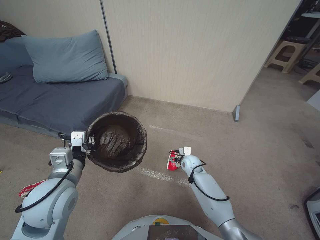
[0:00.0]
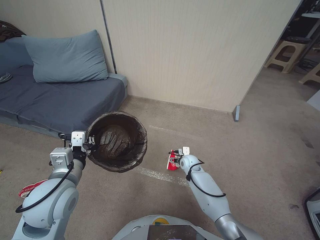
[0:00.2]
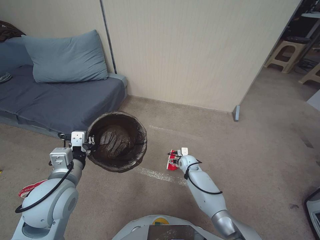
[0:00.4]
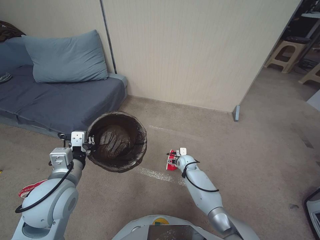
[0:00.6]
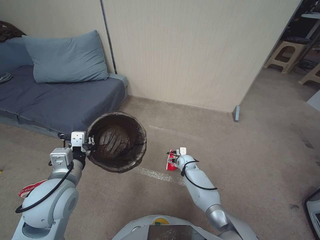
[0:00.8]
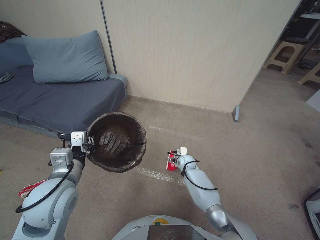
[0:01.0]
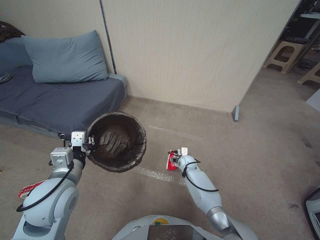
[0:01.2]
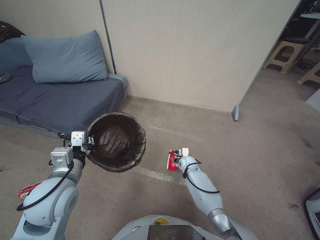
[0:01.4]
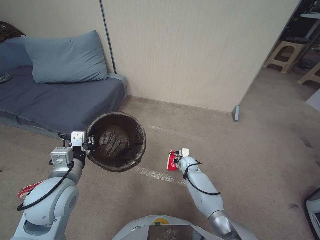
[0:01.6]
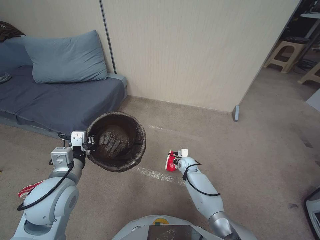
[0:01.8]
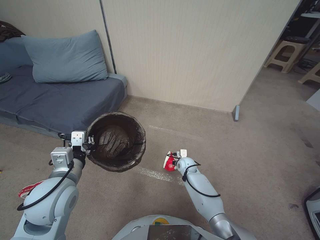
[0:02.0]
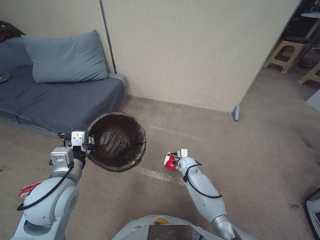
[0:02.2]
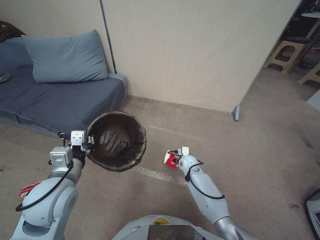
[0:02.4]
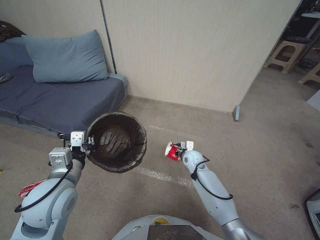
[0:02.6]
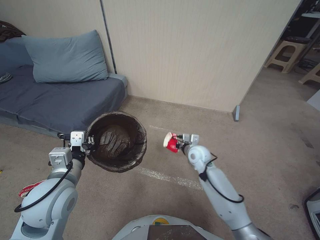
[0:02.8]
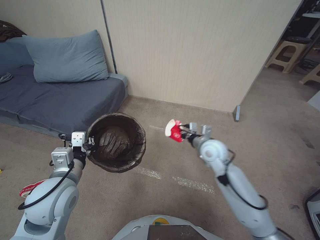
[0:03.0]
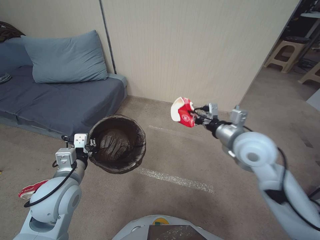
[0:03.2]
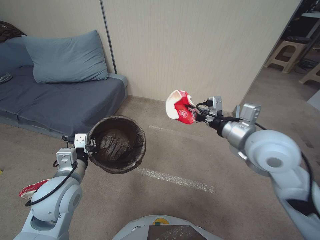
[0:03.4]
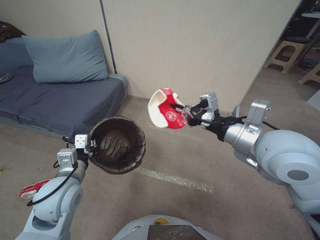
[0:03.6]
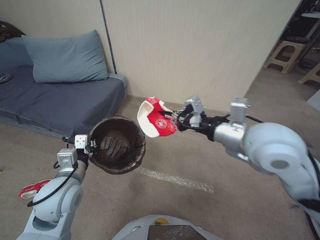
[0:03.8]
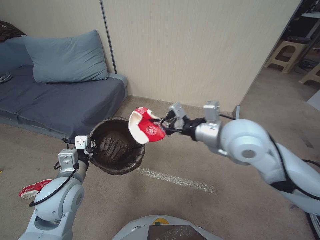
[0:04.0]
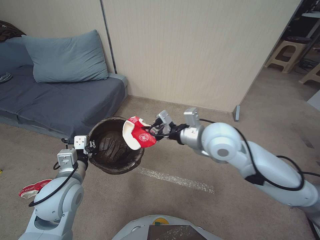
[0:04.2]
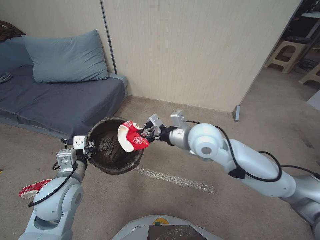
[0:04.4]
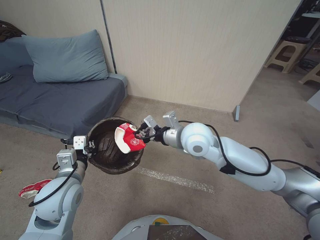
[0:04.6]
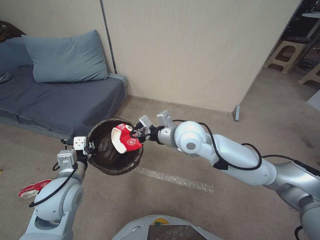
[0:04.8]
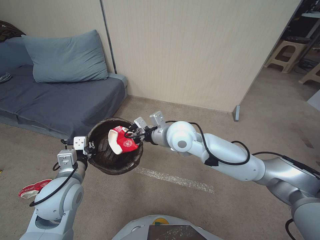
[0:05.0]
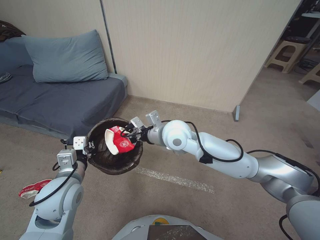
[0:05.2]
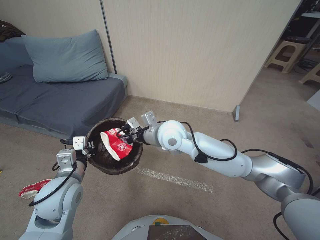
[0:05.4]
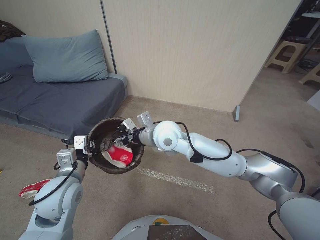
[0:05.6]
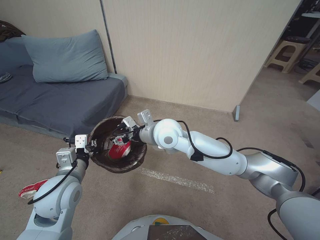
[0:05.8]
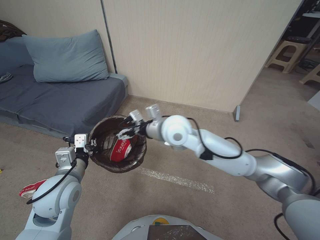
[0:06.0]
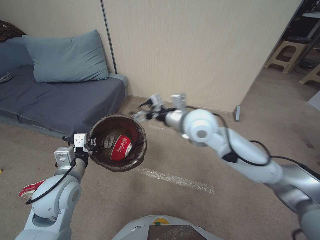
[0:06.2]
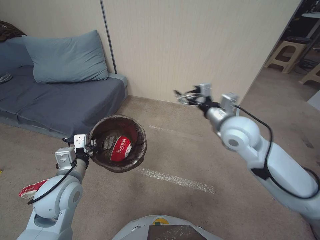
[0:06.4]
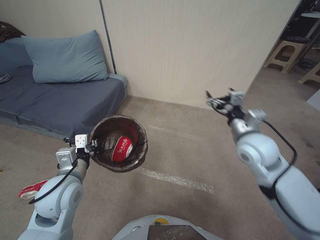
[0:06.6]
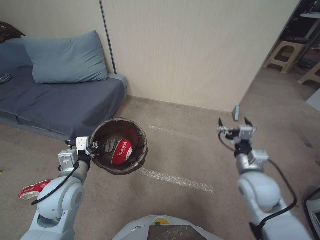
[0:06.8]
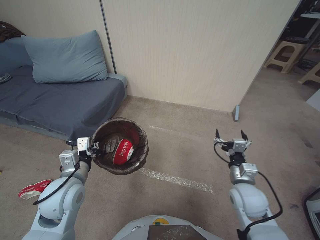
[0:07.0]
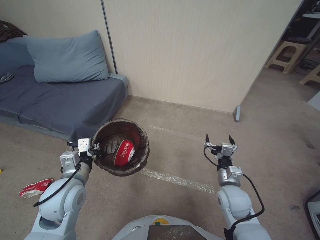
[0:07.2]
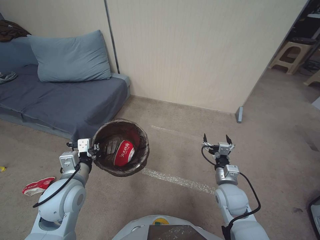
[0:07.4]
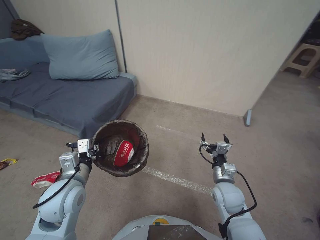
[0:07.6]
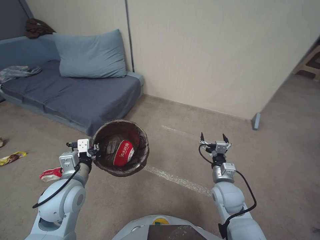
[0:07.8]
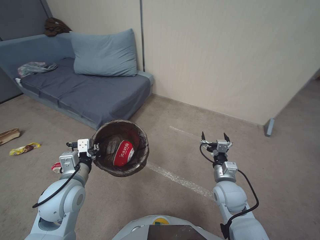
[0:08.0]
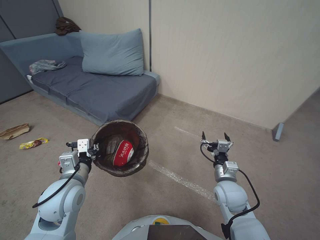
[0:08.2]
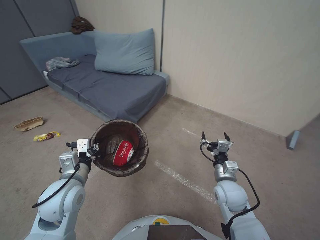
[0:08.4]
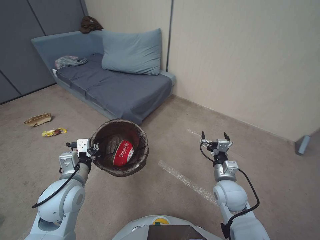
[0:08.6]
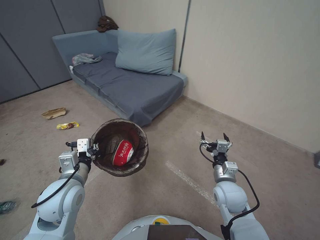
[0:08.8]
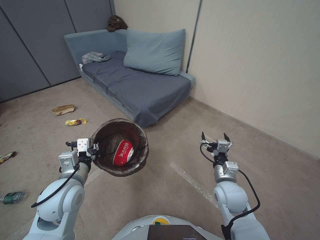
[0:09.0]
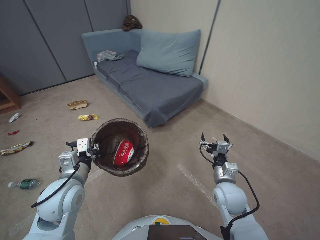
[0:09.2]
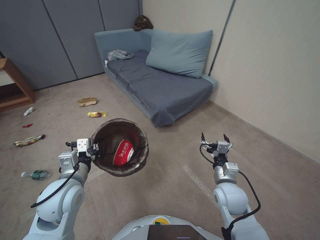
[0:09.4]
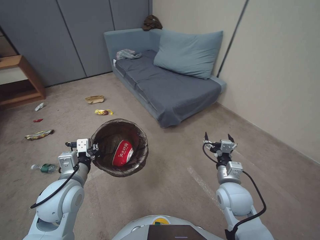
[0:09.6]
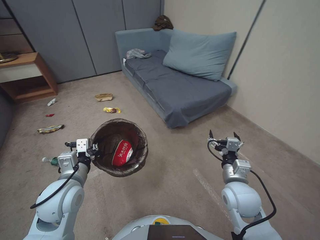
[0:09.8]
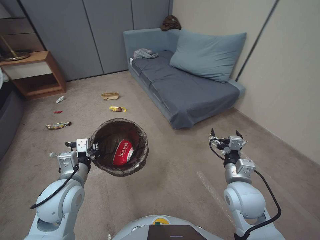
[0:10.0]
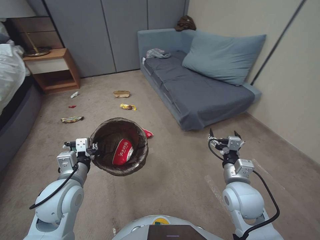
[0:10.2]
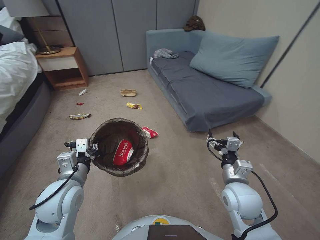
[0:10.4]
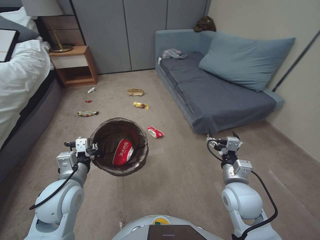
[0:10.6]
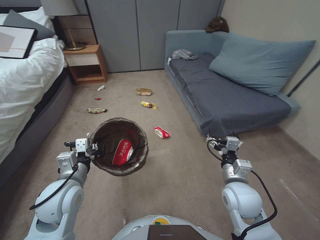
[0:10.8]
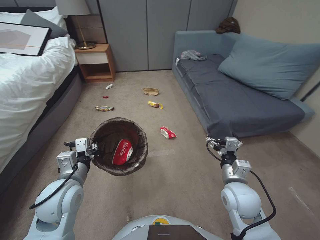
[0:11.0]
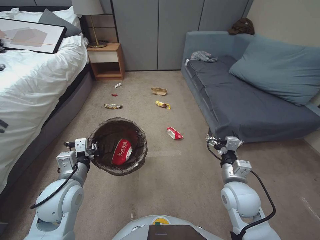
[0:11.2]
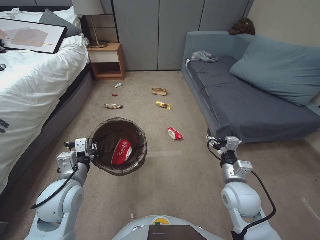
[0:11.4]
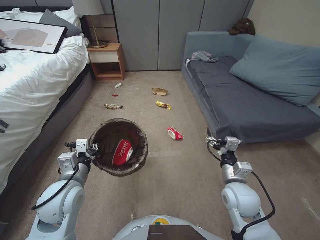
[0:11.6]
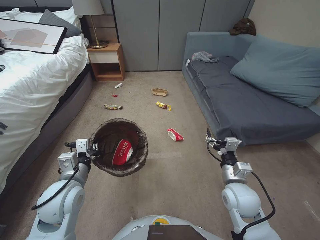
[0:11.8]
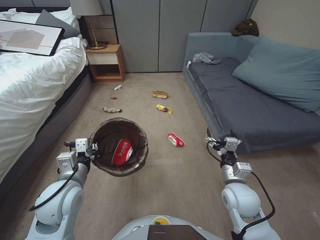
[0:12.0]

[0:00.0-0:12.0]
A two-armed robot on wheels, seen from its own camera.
Task of the whole recording: Pick up the trash bin, then pick up the garbage from the floor and place it into the trash bin.
0:00.0 to 0:01.6: The right gripper moves downward, approximately 5 cm, and closes.
0:01.6 to 0:03.0: The right gripper heads upward, covering approximately 20 cm, and closes.
0:03.0 to 0:04.4: The right gripper goes about 20 cm upward.
0:04.4 to 0:06.0: The right gripper moves to the left, roughly 10 cm, and opens its fingers.
0:06.0 to 0:07.6: The right gripper shifts roughly 35 cm to the right, downward and backward.
0:09.0 to 0:10.4: The right gripper goes some 5 cm upward.

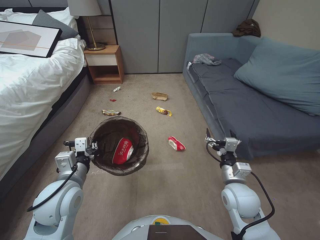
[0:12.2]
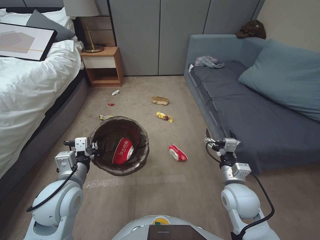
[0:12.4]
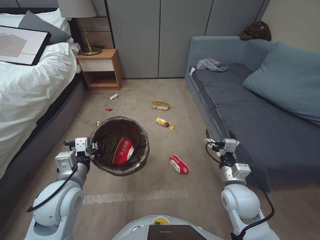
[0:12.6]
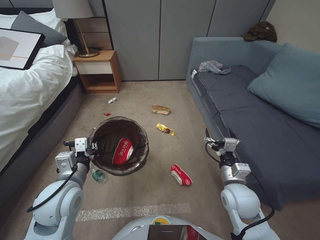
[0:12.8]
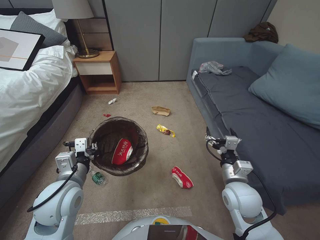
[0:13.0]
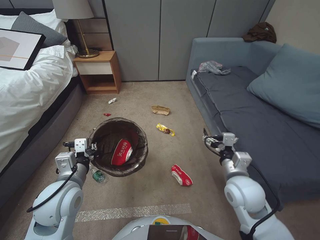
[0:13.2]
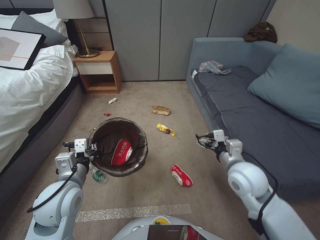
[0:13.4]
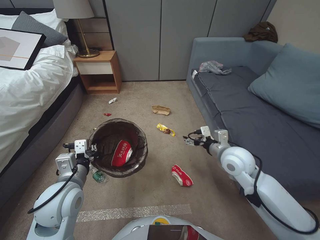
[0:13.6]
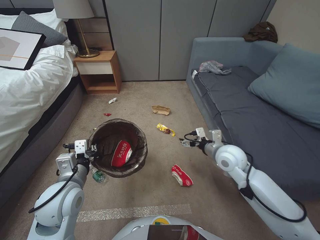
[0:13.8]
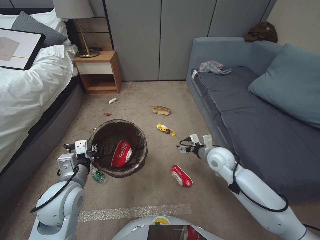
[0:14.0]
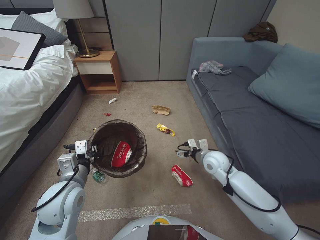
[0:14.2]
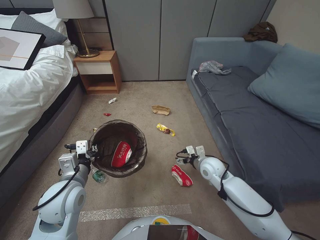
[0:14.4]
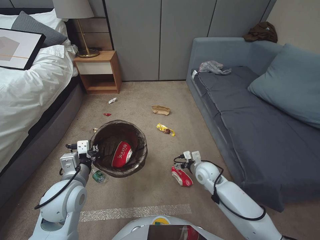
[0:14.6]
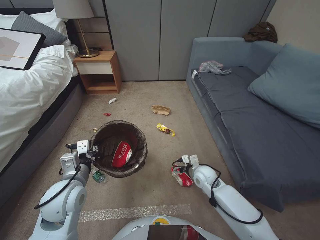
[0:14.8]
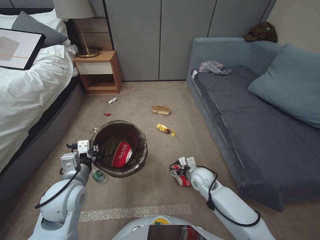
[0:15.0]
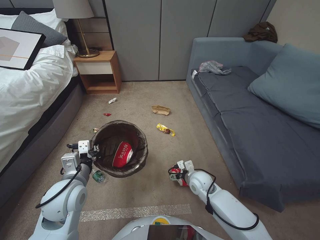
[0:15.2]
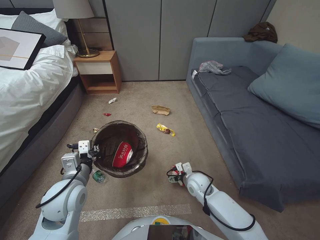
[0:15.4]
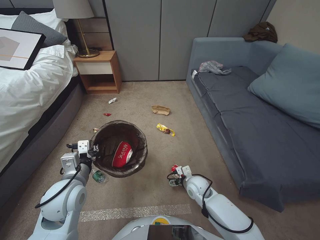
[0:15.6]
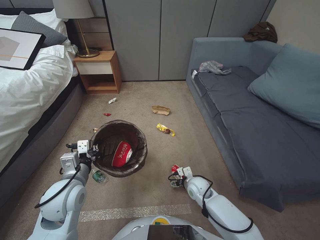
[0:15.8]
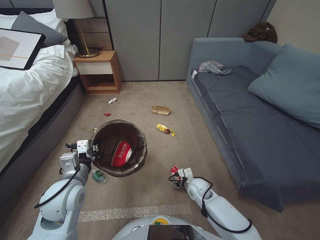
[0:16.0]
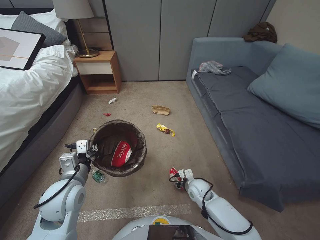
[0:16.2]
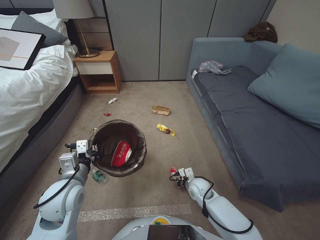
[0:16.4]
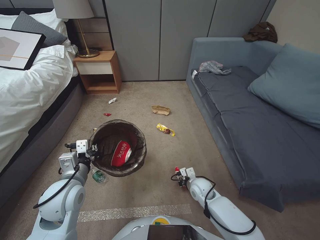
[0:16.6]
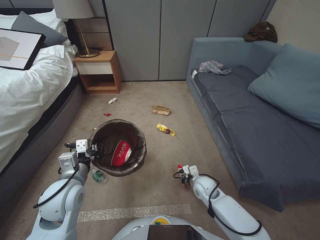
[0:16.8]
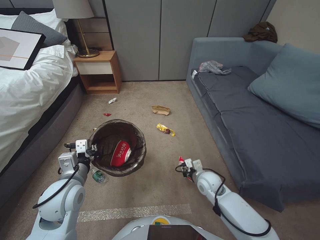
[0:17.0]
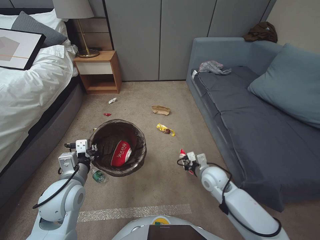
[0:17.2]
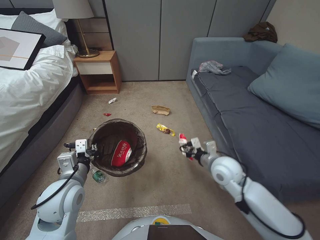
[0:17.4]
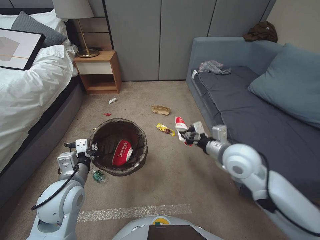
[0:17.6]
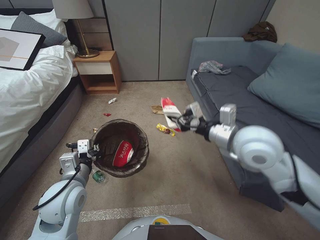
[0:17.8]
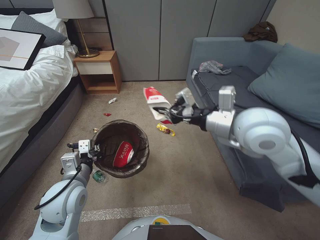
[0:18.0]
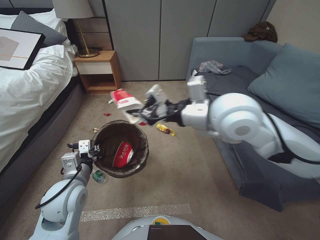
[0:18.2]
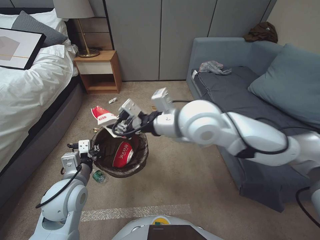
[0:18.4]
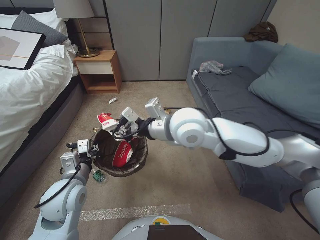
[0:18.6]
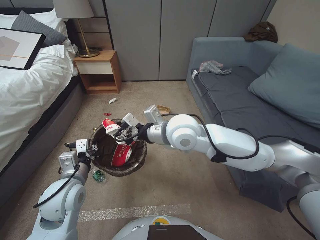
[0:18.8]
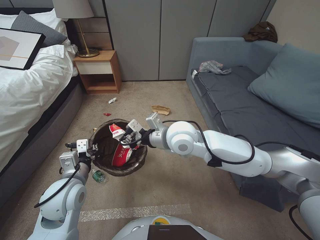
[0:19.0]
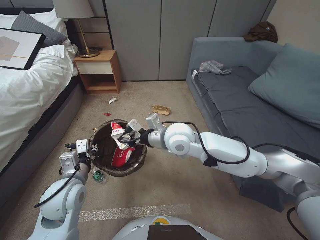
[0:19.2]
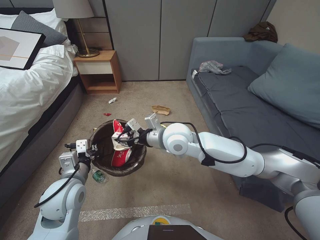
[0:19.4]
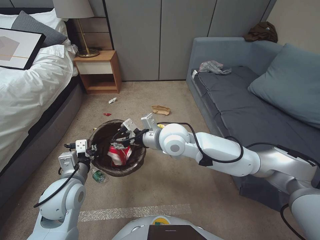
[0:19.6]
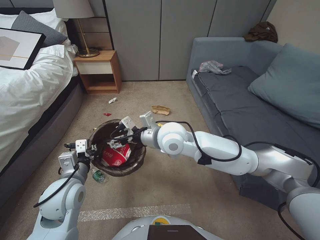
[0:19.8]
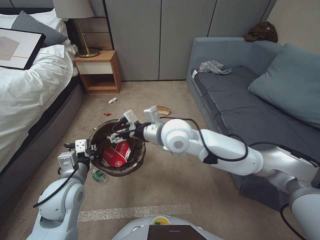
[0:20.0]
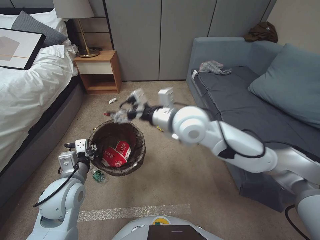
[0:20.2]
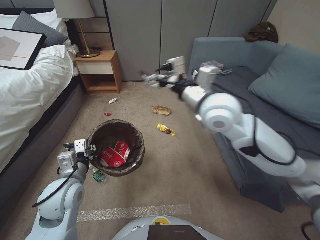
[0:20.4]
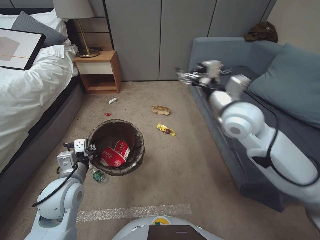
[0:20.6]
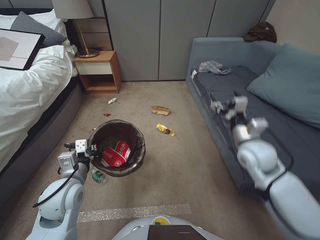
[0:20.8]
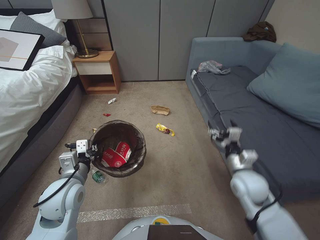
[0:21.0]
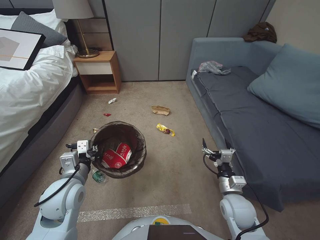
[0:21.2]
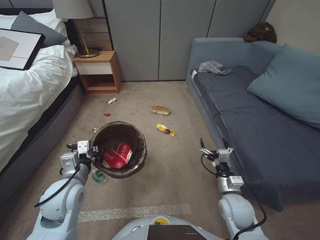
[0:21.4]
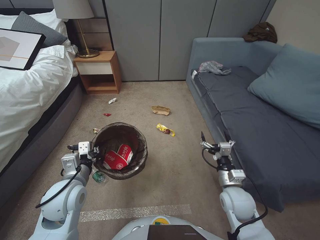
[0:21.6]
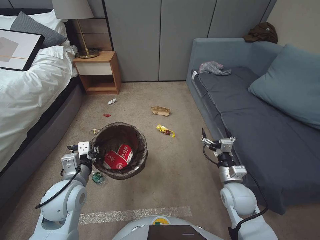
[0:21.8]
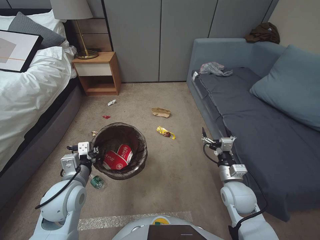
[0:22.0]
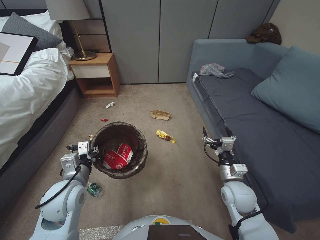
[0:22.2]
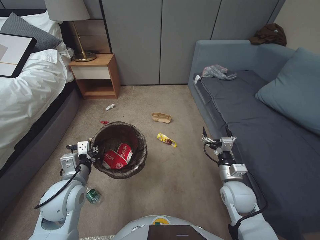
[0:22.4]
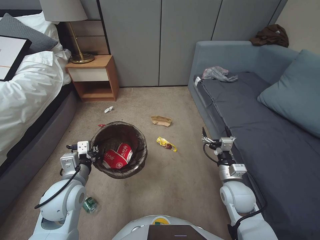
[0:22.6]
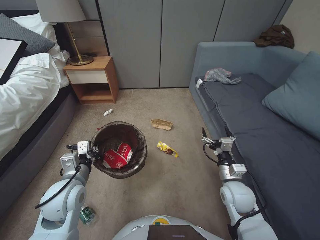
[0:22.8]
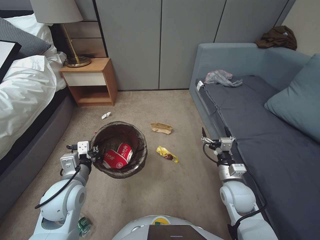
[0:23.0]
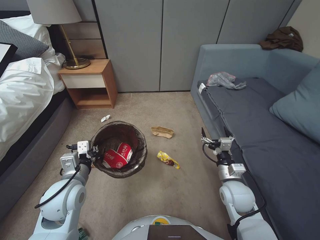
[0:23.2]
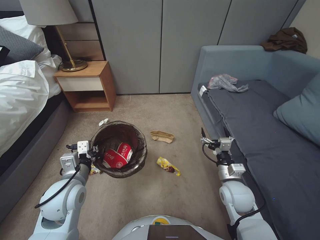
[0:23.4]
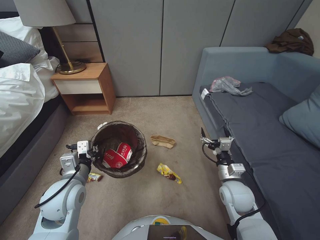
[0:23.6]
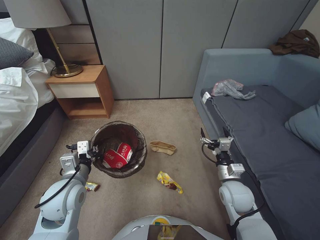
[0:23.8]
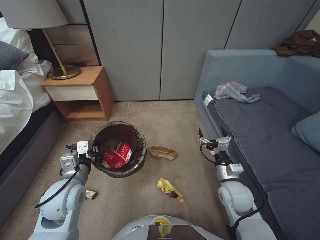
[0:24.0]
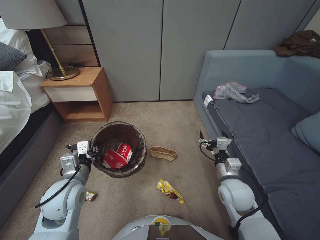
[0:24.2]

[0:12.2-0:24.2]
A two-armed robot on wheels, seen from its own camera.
Task of the whole recording: Pick up the trash bin, then pick up the garbage from the floor and place it into the trash bin.
0:12.2 to 0:13.8: The right gripper goes roughly 10 cm forward and upward.
0:13.8 to 0:15.2: The right gripper shifts some 20 cm downward.
0:15.2 to 0:16.6: The right gripper shifts some 5 cm downward, and closes up.
0:16.6 to 0:18.2: The right gripper goes roughly 40 cm upward.
0:18.2 to 0:19.8: The right gripper heads to the left and downward, covering approximately 20 cm, and opens its fingers.
0:19.8 to 0:21.2: The right gripper shifts roughly 30 cm to the right and downward.
